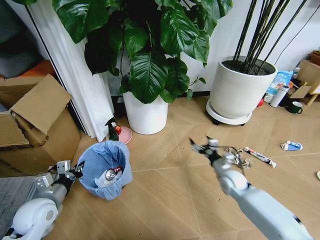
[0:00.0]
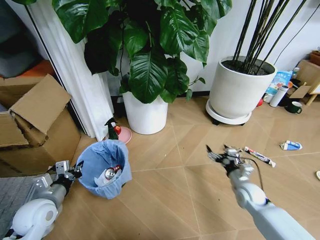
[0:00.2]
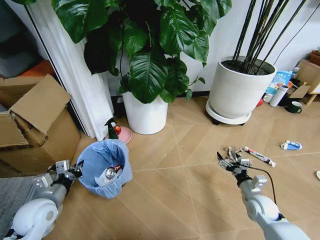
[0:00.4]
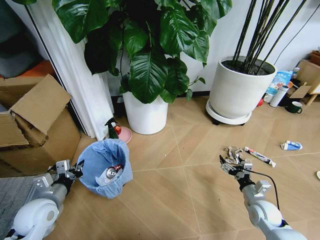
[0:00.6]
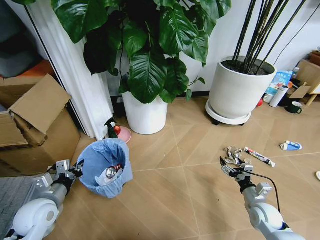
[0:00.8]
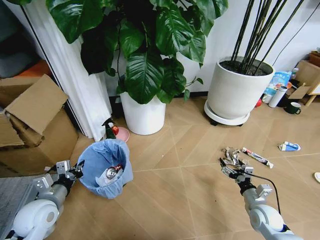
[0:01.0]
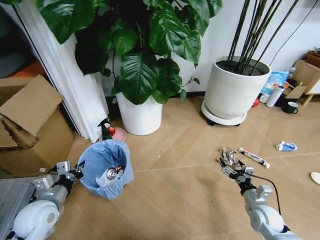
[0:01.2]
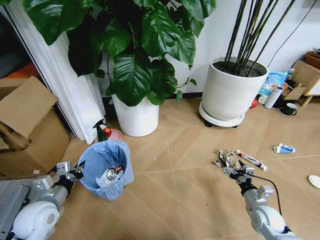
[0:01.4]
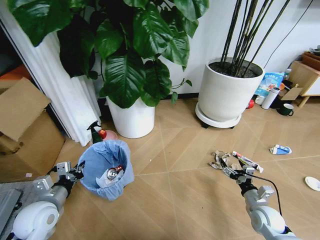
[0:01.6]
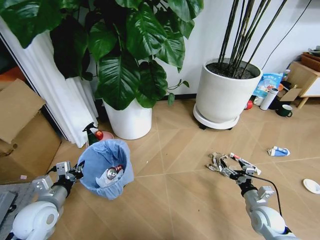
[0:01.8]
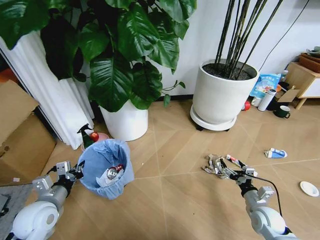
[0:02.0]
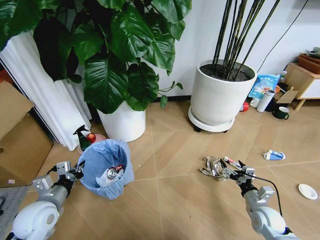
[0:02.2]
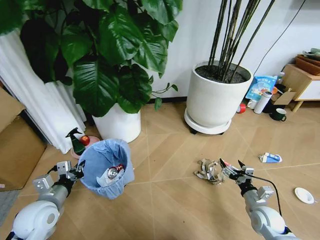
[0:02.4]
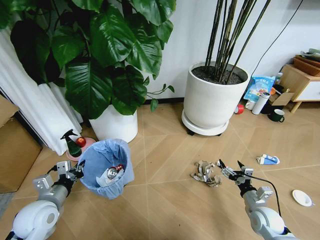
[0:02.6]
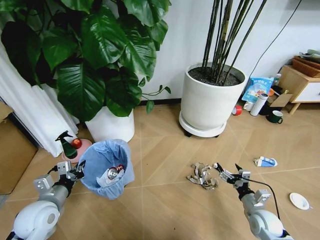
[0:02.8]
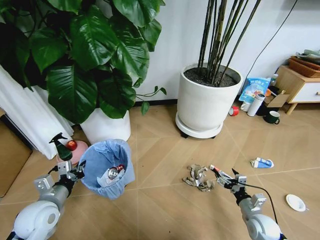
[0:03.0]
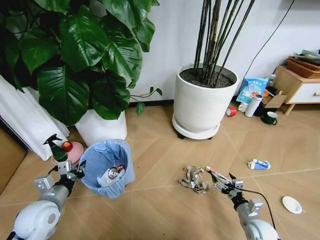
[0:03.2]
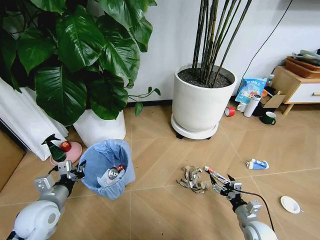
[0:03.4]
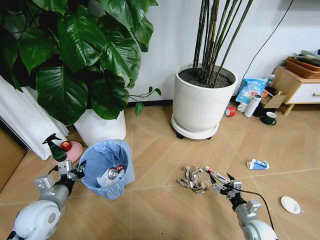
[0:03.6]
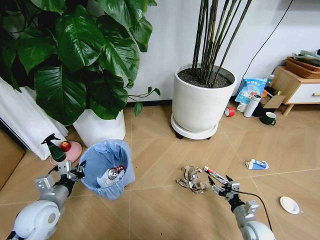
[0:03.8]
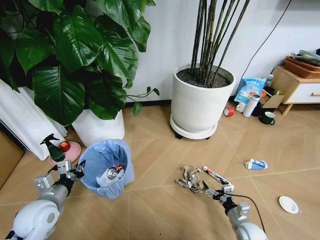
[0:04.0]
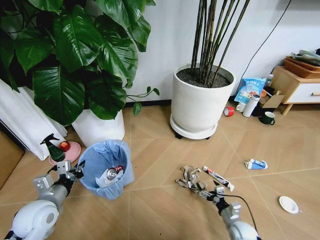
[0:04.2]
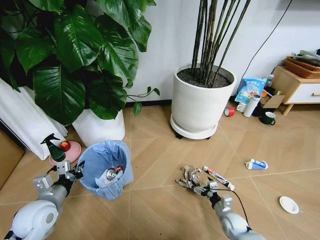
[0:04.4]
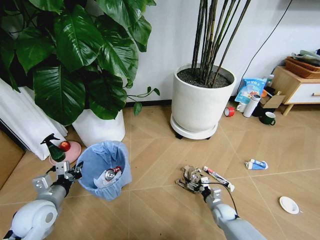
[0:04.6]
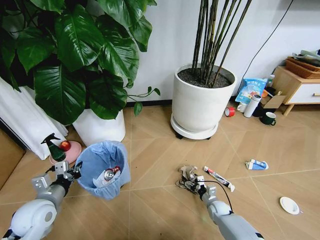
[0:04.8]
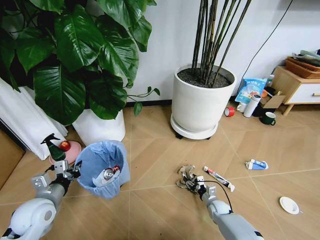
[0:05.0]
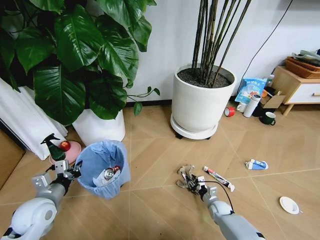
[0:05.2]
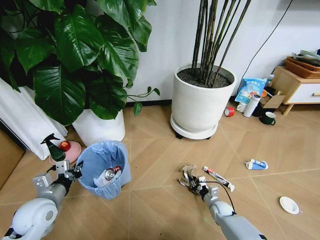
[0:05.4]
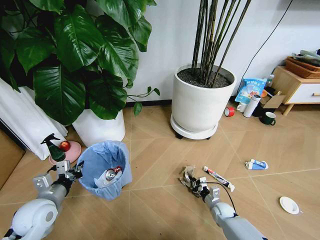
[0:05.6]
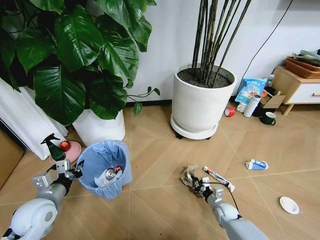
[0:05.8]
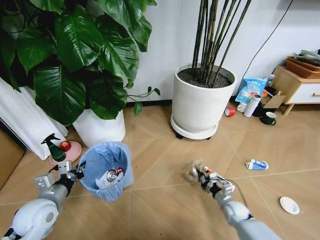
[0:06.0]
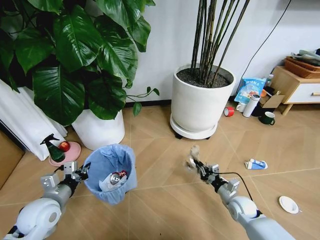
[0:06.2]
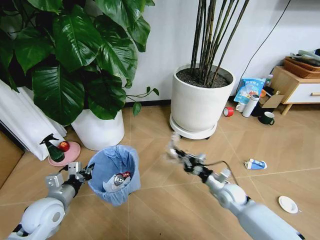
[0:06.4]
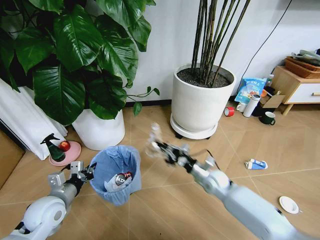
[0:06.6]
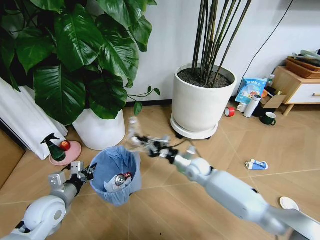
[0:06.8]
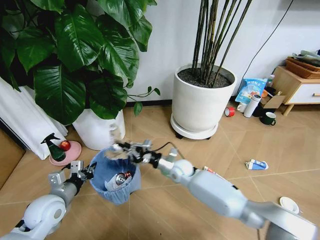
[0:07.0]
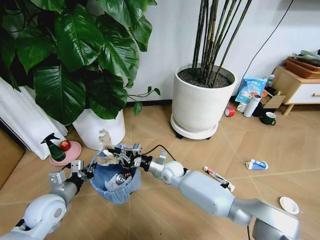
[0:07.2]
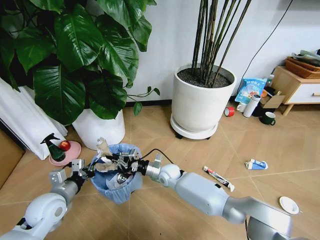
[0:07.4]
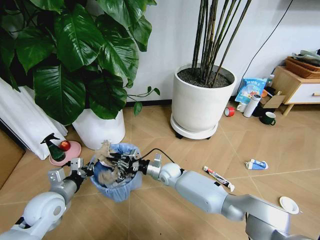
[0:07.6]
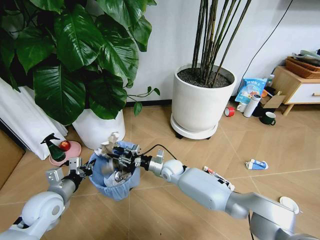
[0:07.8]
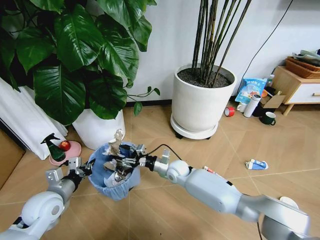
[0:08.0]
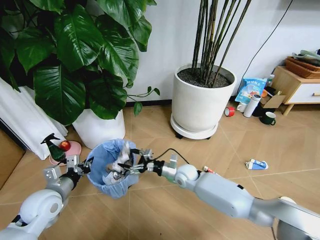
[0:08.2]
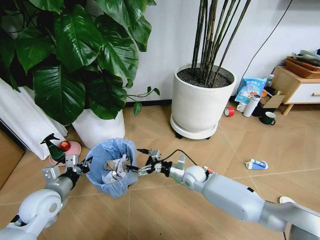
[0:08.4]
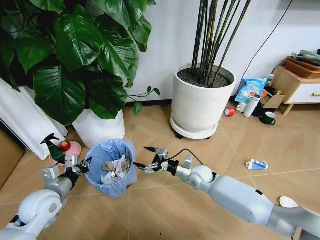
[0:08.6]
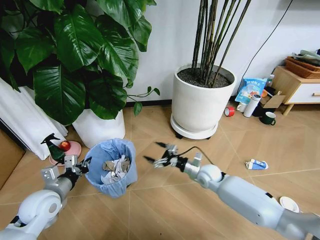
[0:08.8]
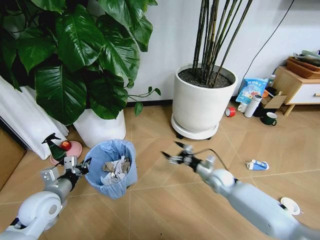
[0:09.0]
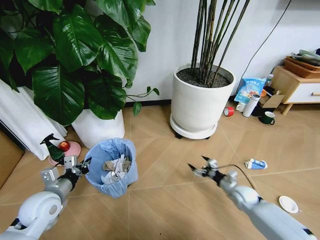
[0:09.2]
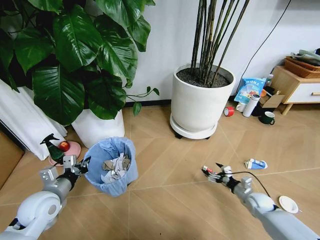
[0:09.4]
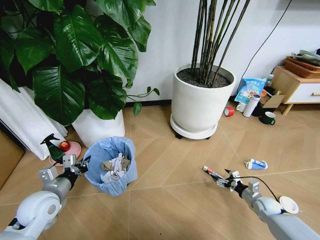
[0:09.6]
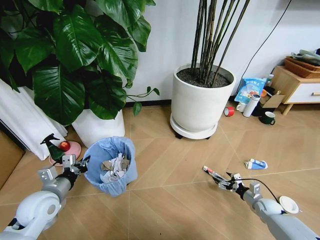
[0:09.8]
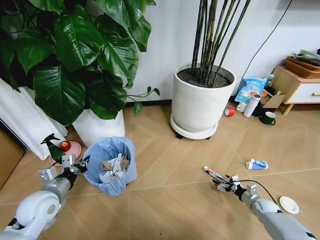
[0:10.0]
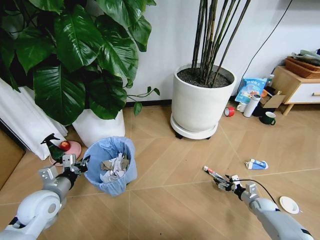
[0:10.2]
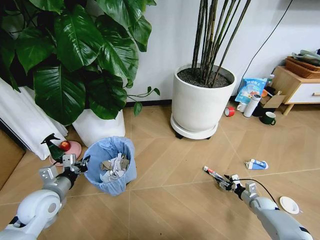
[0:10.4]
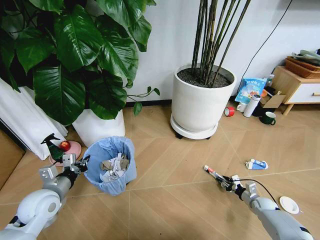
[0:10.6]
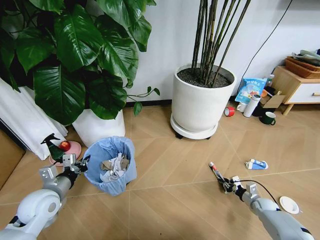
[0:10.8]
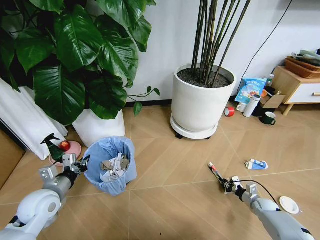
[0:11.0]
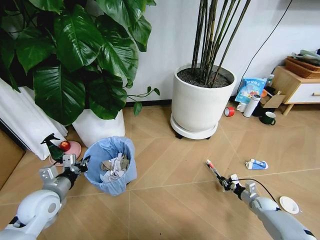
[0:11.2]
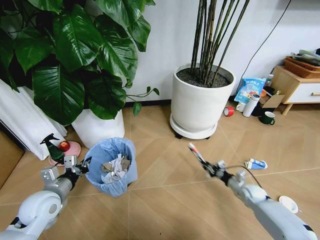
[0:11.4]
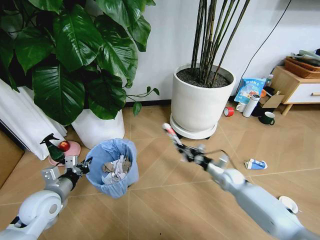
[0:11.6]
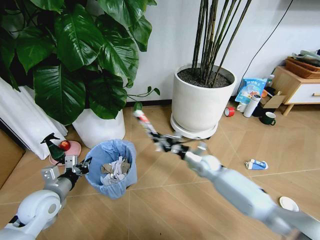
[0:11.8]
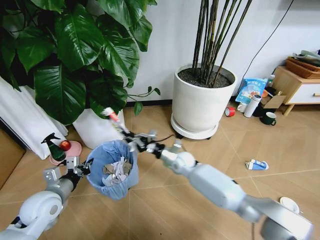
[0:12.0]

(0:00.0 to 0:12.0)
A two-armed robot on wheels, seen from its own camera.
Task of the whole recording: Pick up the trash bin and place the garbage on the floor into it.
0:00.0 - 0:01.6: The right gripper moves backward and to the right, roughly 15 cm.
0:03.0 - 0:04.4: The right gripper goes approximately 10 cm downward and to the left.
0:04.4 - 0:06.0: The right gripper closes its fingers.
0:06.0 - 0:07.6: The right gripper goes approximately 35 cm to the left, forward and upward.
0:07.6 - 0:09.0: The right gripper travels to the right by about 25 cm, and opens its fingers.
0:09.0 - 0:10.4: The right gripper goes approximately 25 cm to the right and downward, and closes.
0:10.4 - 0:12.0: The right gripper shifts about 40 cm to the left and upward, and closes.

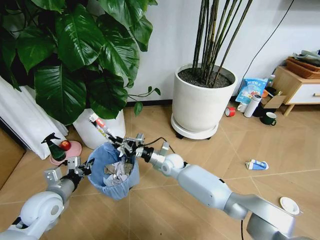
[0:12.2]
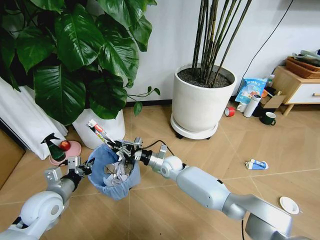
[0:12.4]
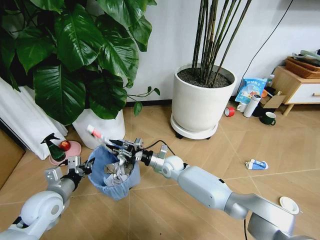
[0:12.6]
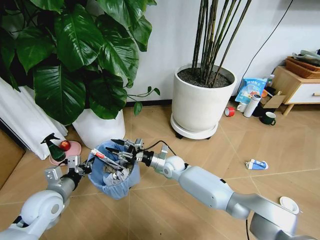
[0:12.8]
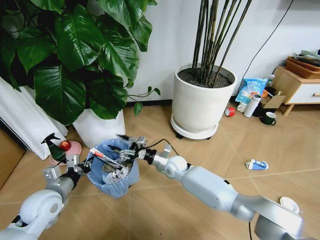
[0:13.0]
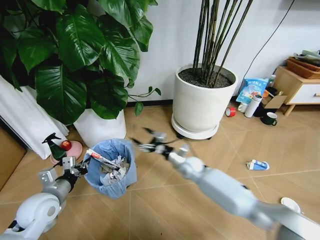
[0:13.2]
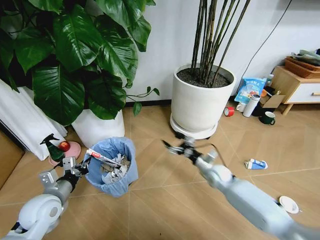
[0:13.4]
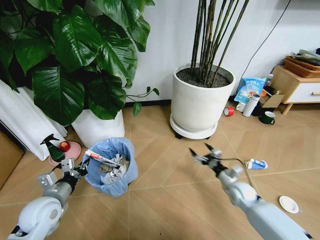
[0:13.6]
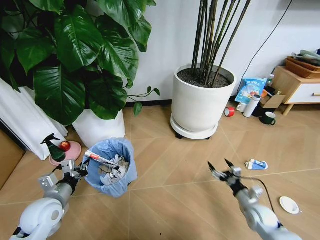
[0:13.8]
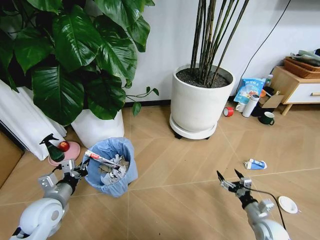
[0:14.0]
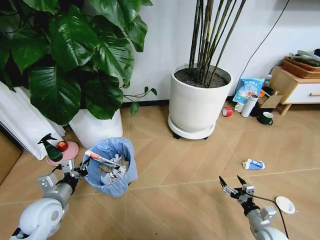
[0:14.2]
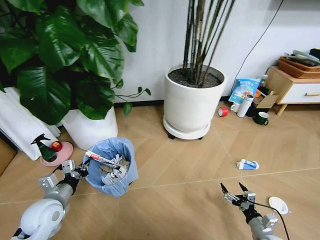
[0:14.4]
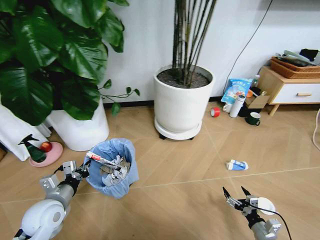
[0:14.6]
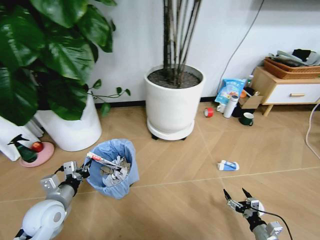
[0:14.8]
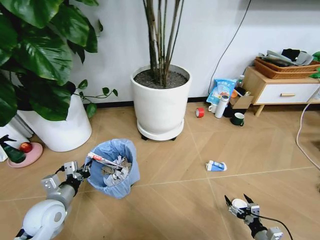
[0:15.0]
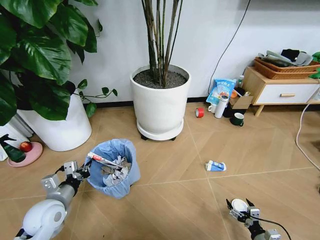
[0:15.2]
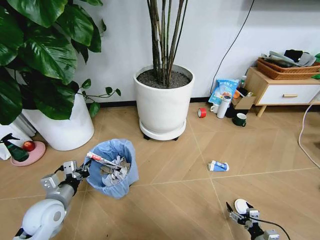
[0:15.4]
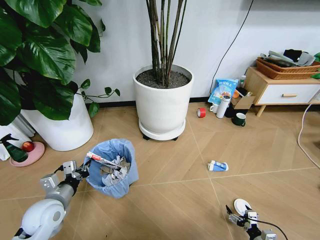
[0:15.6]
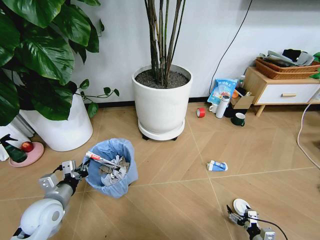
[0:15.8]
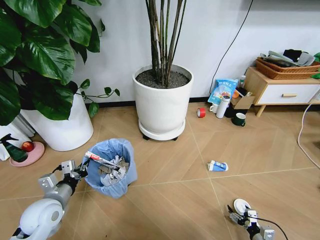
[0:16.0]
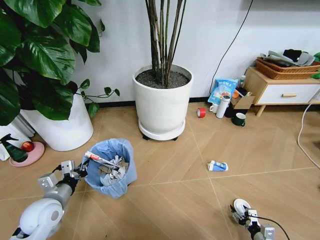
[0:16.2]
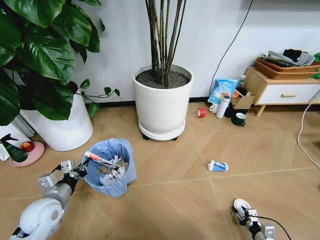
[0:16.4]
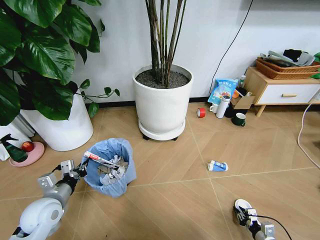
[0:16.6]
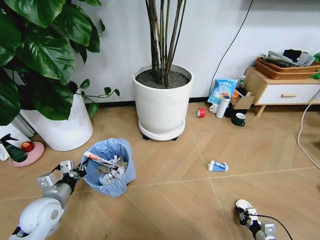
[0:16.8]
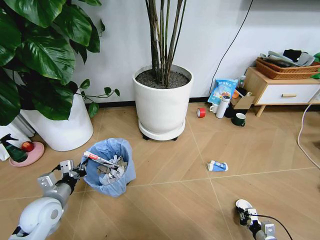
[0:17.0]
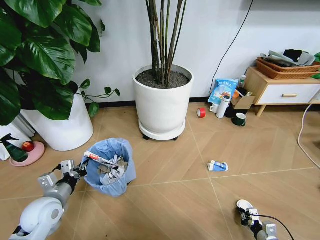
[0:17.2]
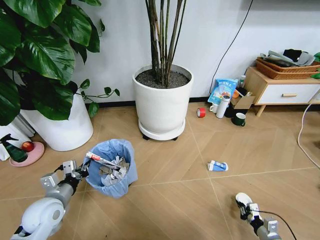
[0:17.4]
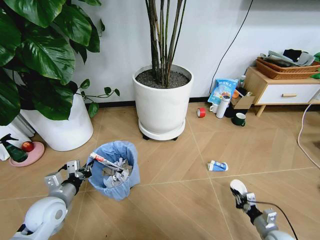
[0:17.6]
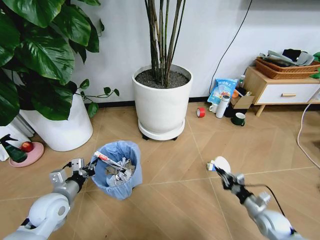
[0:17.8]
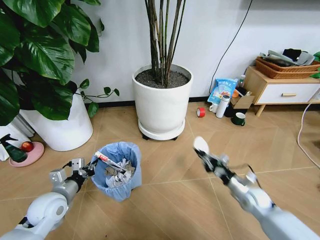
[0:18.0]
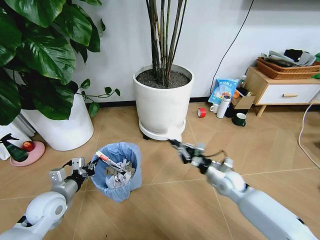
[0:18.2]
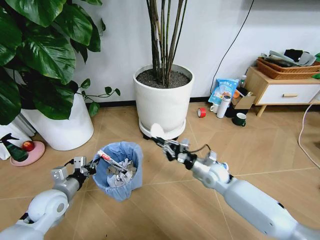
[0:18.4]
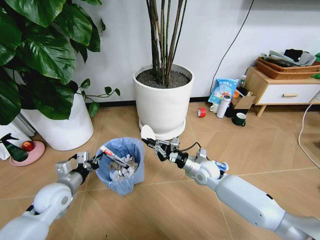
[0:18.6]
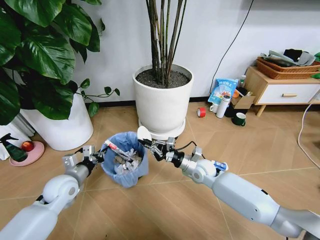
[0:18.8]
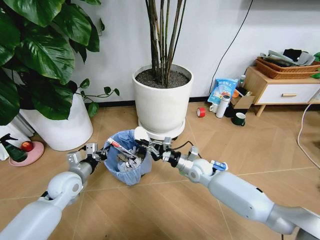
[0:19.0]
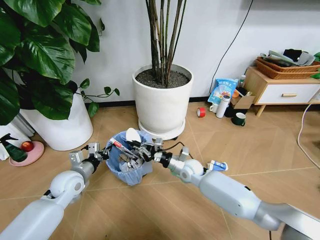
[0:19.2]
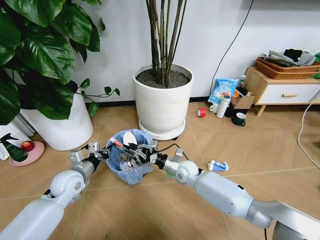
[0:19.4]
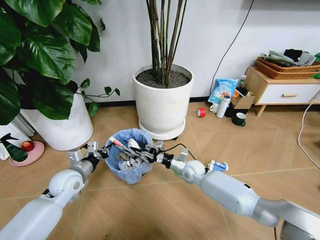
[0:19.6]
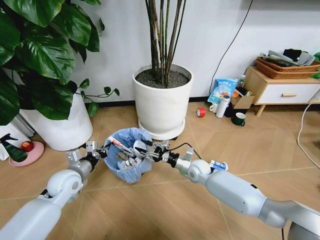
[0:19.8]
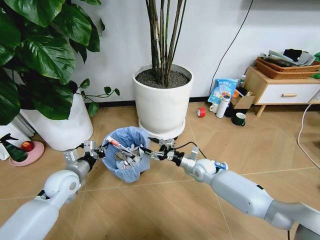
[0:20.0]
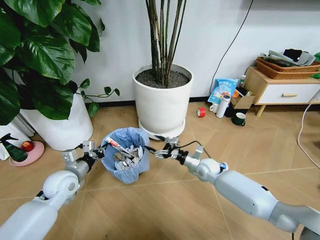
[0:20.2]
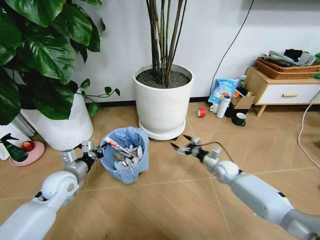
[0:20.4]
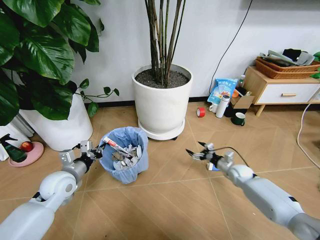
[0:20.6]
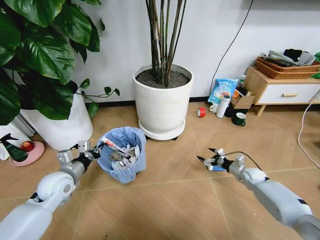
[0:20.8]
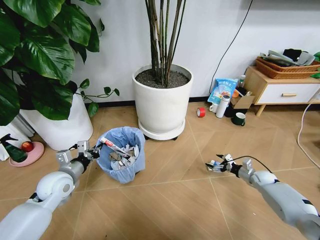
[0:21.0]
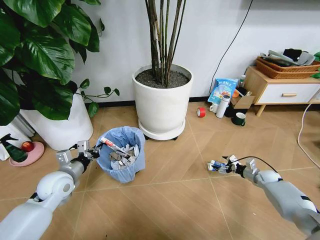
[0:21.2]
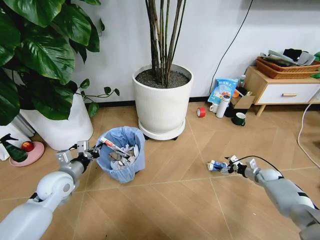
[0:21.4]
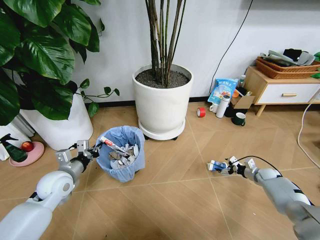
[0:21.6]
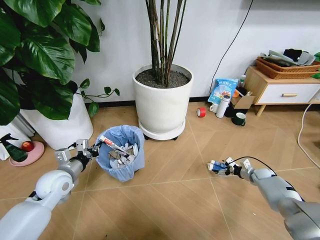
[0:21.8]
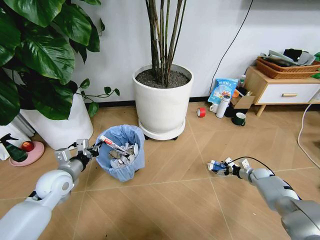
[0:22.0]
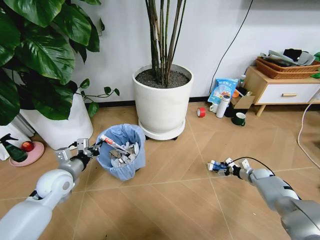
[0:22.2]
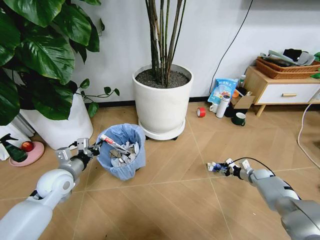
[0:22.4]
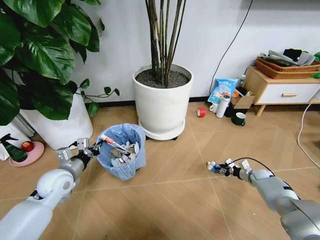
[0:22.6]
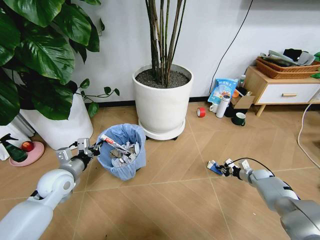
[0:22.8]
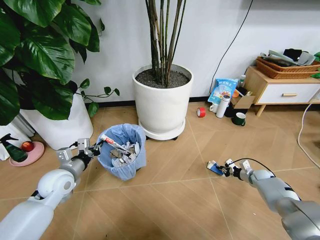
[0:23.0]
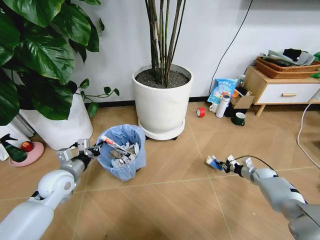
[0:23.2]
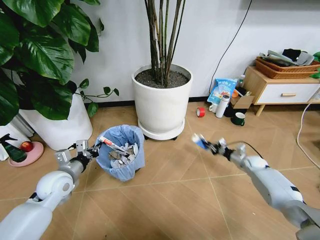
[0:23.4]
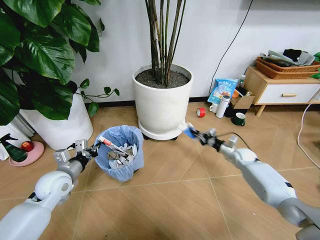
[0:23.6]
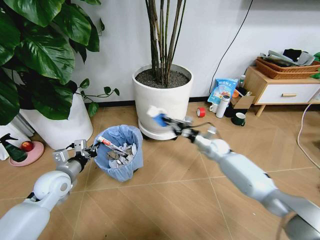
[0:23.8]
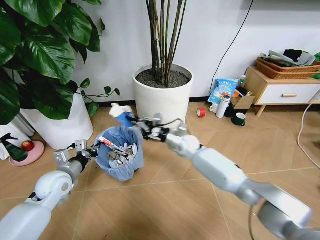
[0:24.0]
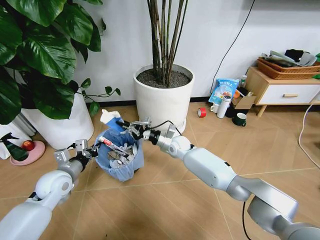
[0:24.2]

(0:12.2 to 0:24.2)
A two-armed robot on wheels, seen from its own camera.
Task of the whole recording: Pick up the trash bin and place the garbage on the floor into it.
0:12.2 - 0:13.8: The right gripper moves to the right and backward, approximately 35 cm, and opens.
0:13.8 - 0:15.2: The right gripper moves backward and downward, roughly 15 cm.
0:15.2 - 0:16.6: The right gripper shifts by about 5 cm, and closes its fingers.
0:16.6 - 0:18.2: The right gripper shifts roughly 35 cm forward, upward and to the left.
0:18.2 - 0:19.8: The right gripper heads to the left and forward, covering approximately 15 cm, and opens. Meanwhile the left gripper heads forward, covering about 5 cm.
0:19.8 - 0:21.2: The right gripper is displaced to the right by roughly 35 cm, and opens its fingers.
0:21.2 - 0:22.6: The right gripper closes.
0:22.6 - 0:24.2: The right gripper shifts approximately 50 cm to the left and upward.
